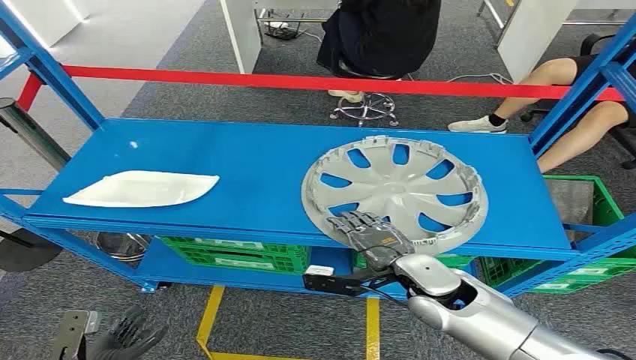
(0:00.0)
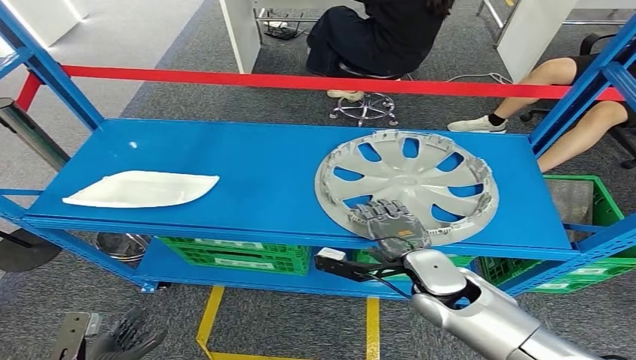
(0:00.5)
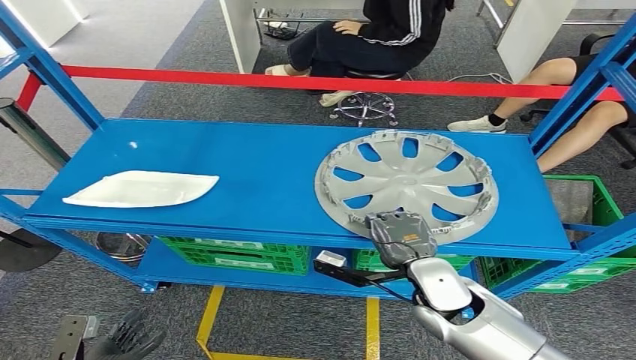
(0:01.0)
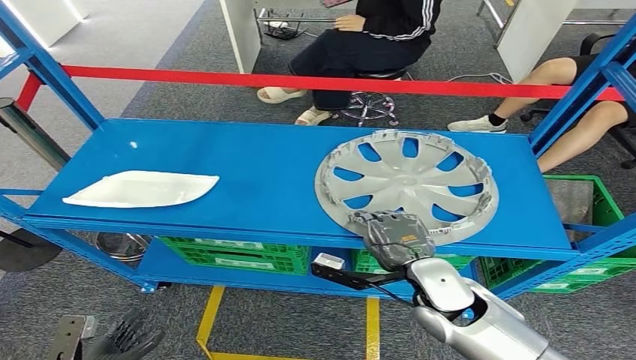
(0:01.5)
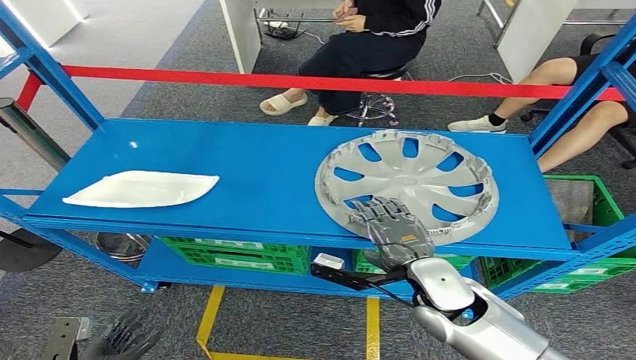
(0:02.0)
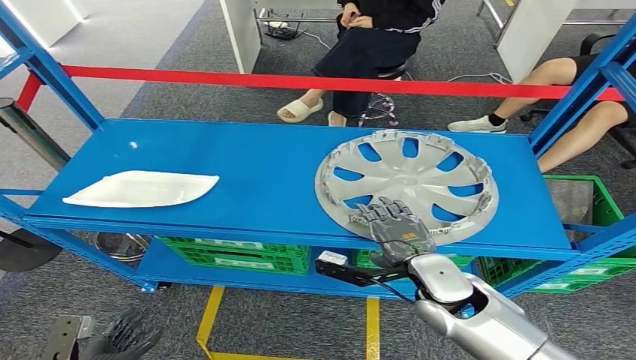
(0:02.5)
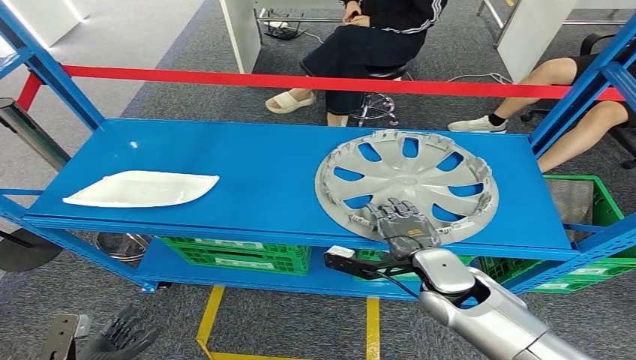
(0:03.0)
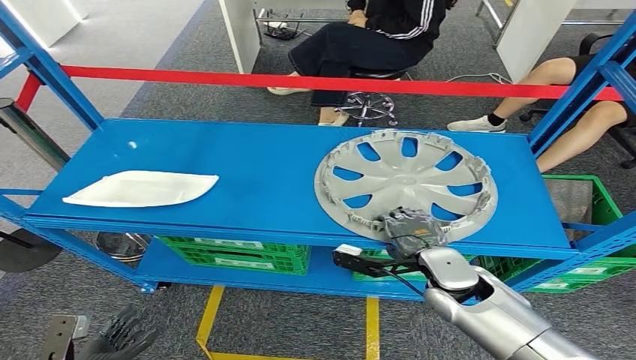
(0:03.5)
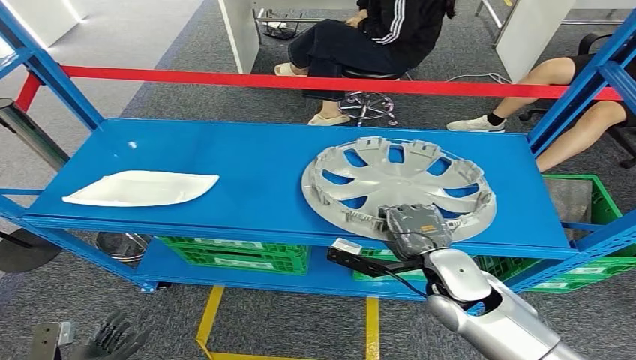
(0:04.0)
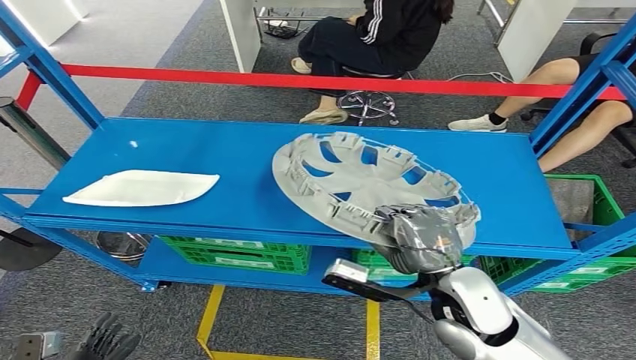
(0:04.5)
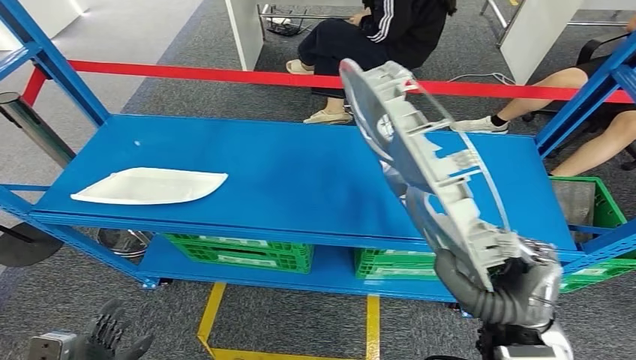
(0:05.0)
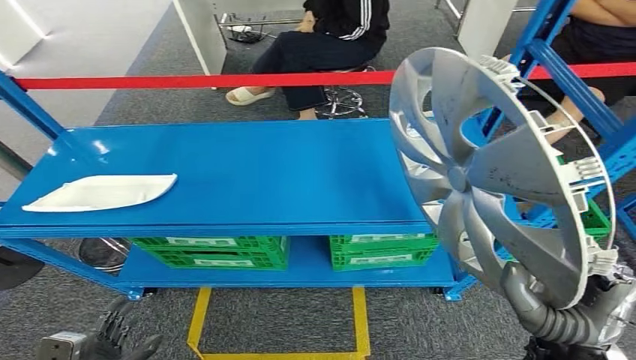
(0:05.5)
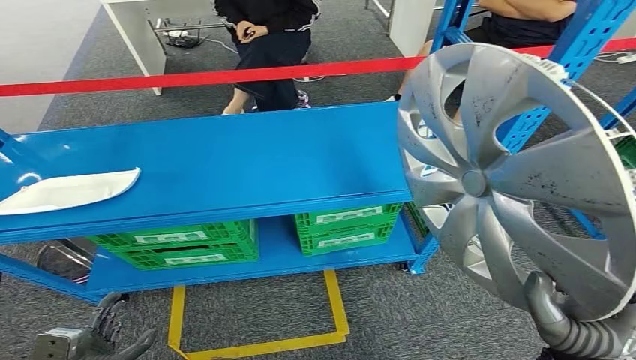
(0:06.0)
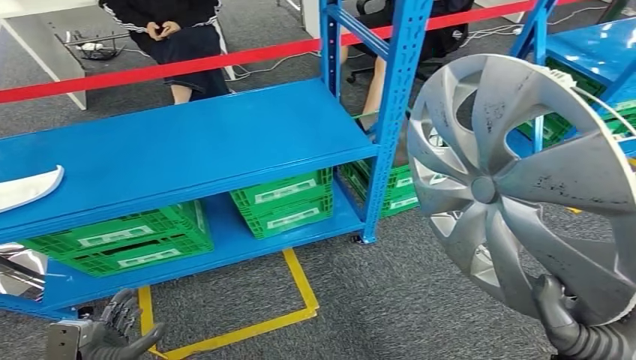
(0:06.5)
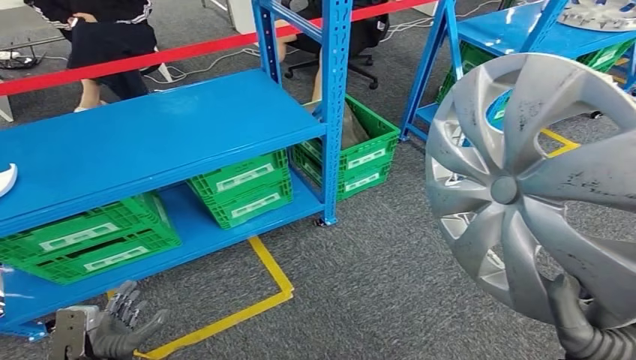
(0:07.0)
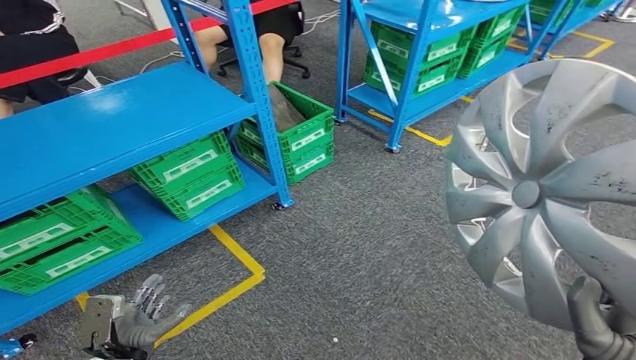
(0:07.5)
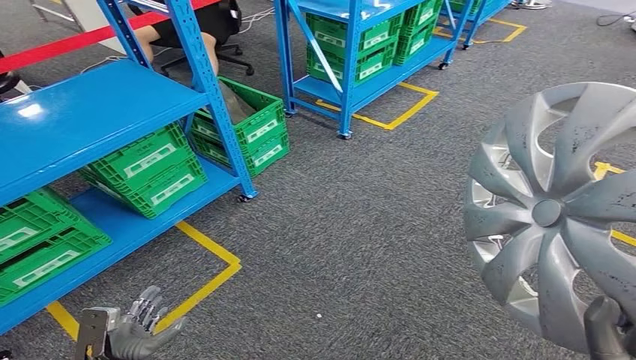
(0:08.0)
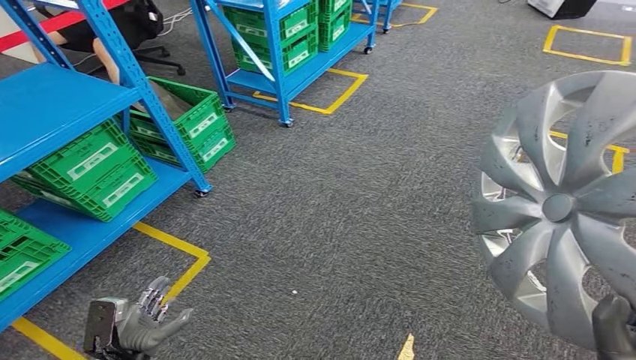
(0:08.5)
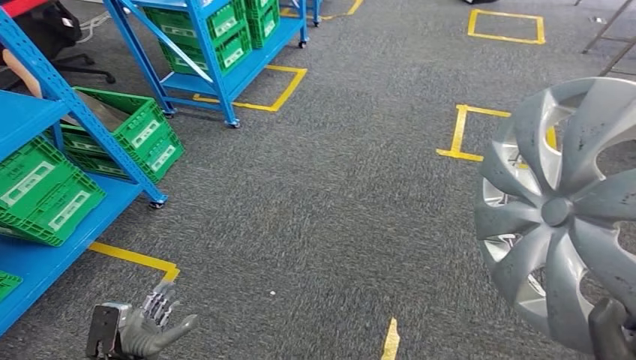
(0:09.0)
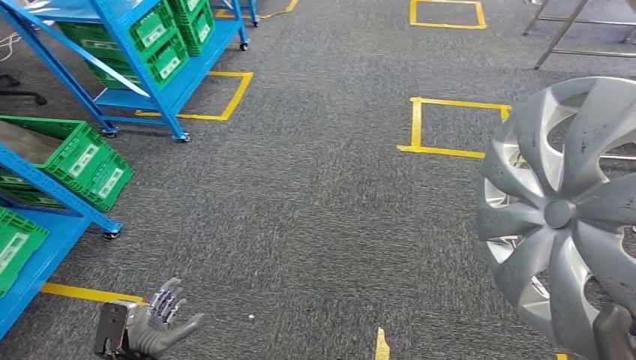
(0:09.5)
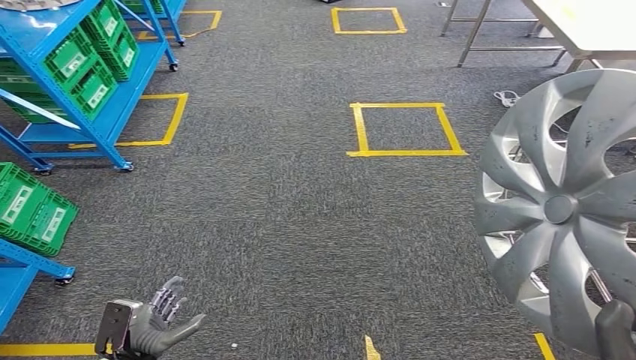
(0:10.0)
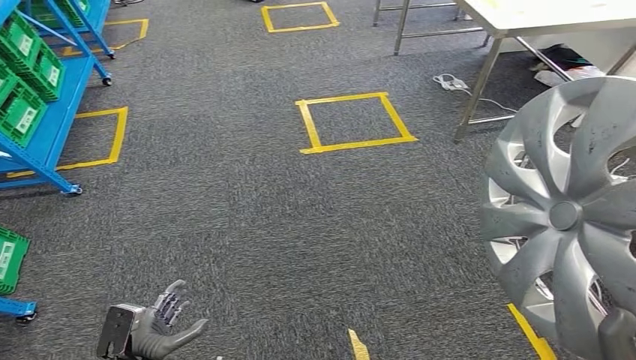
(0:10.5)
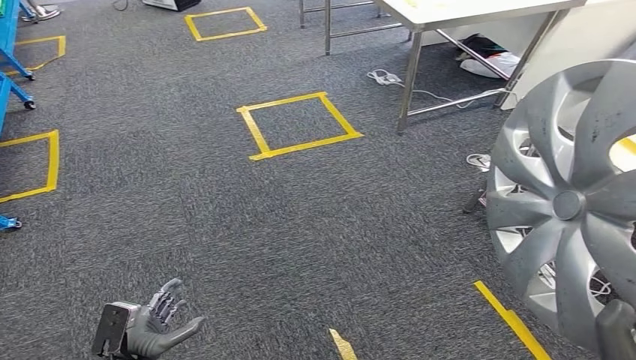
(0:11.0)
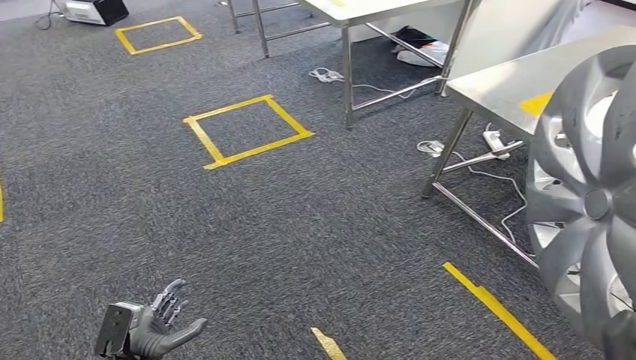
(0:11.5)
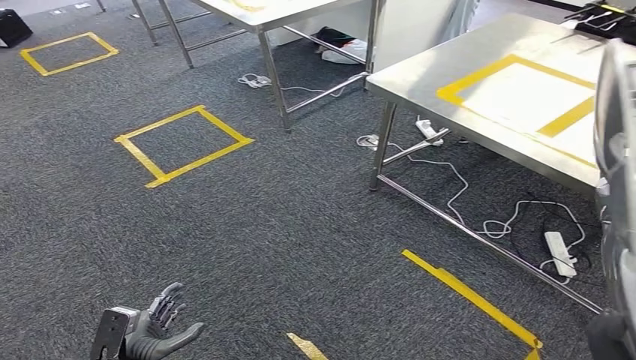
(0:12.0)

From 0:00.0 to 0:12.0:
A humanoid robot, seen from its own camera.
Step, from 0:00.0 to 0:07.0: Pick up the small component from the shelf.
From 0:02.0 to 0:04.0: The hands make only small movements.

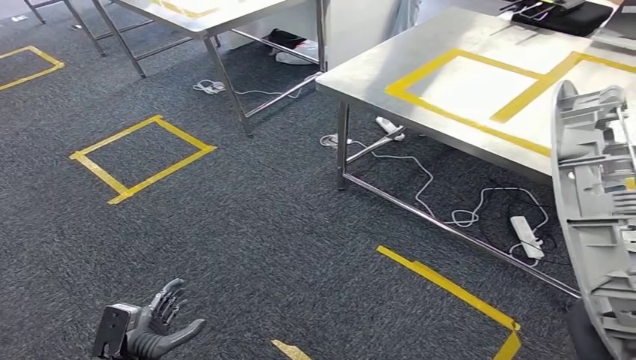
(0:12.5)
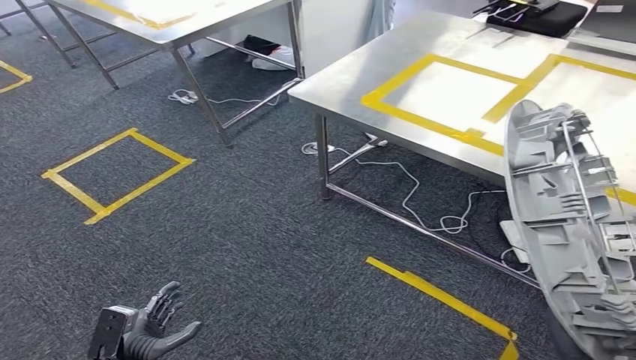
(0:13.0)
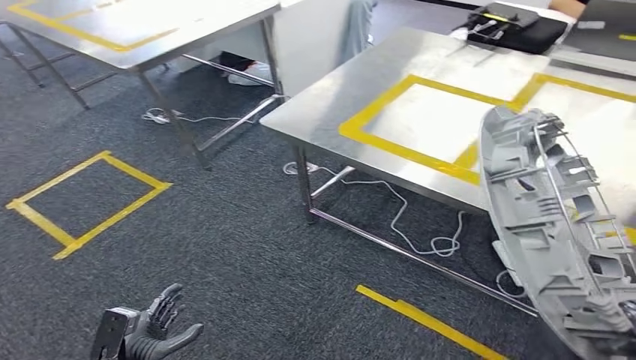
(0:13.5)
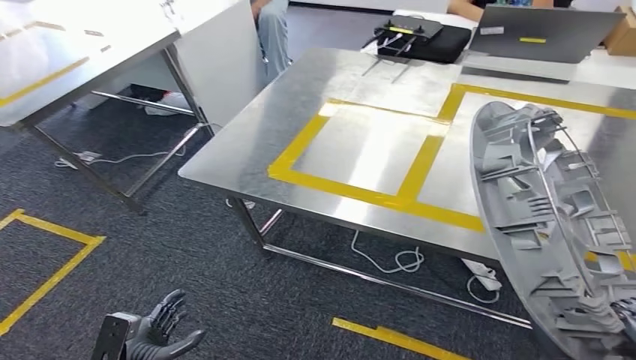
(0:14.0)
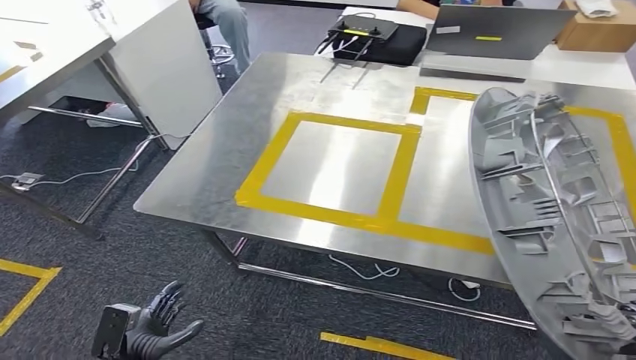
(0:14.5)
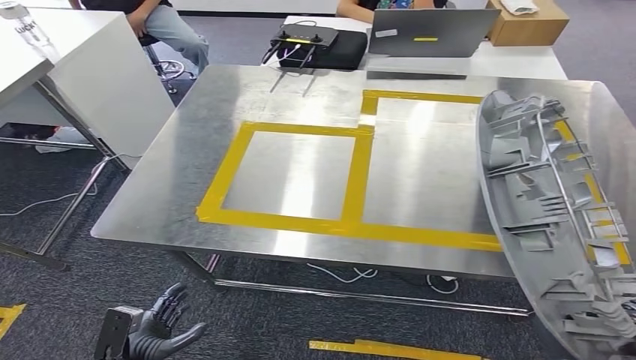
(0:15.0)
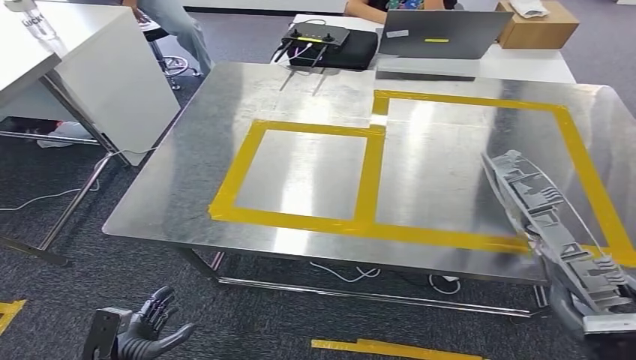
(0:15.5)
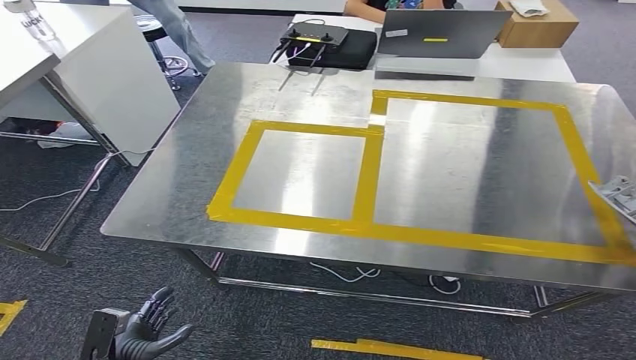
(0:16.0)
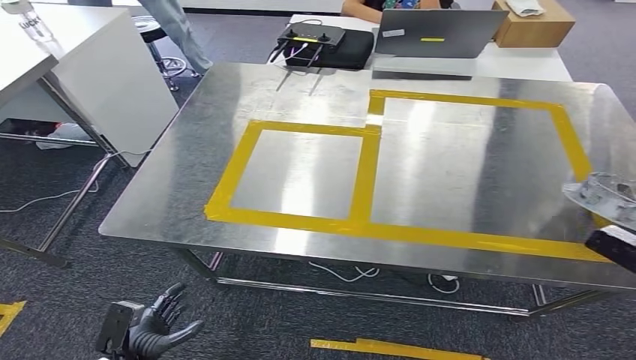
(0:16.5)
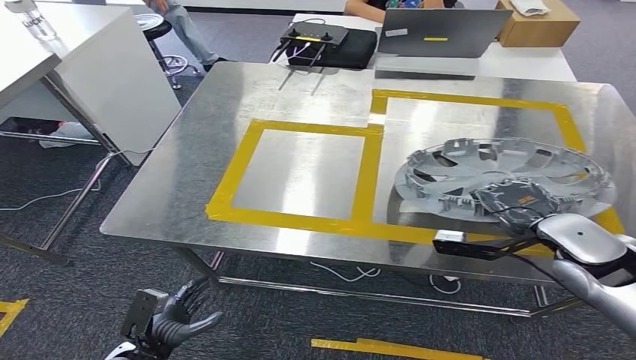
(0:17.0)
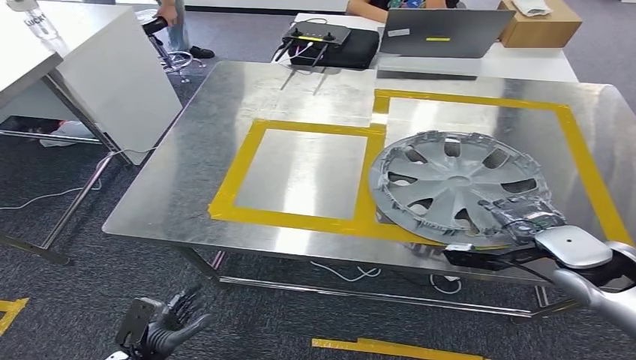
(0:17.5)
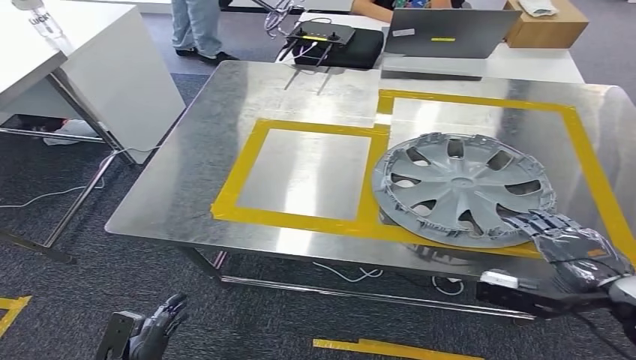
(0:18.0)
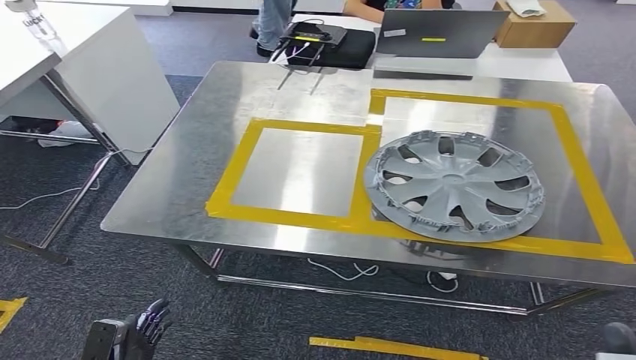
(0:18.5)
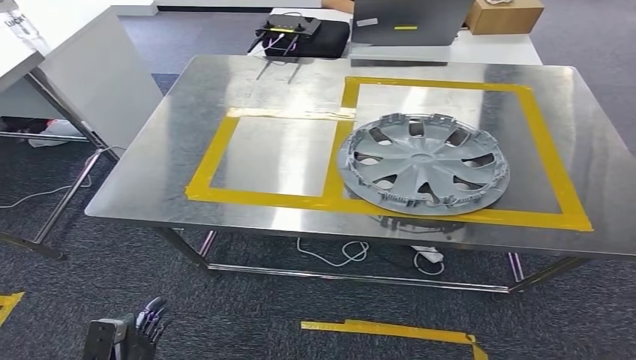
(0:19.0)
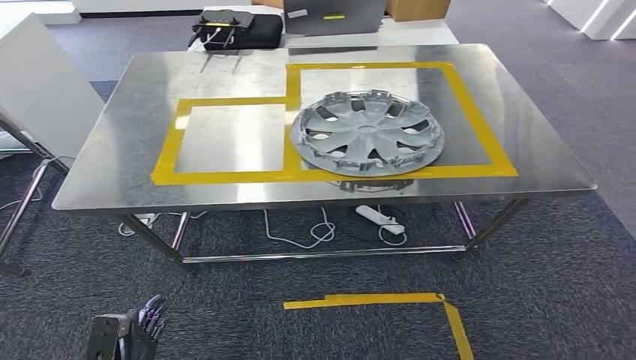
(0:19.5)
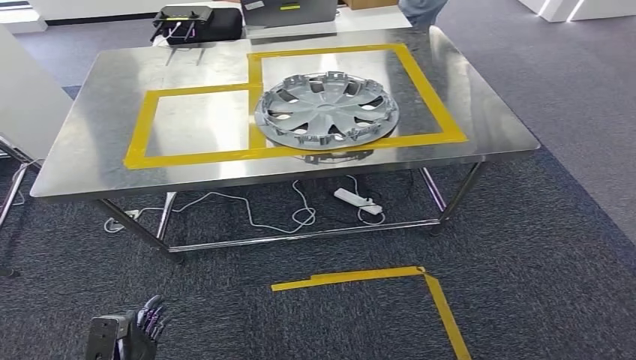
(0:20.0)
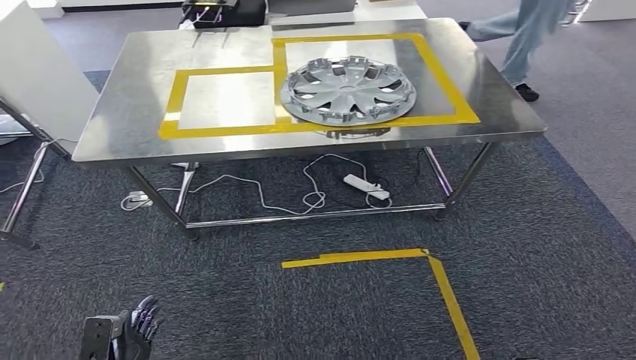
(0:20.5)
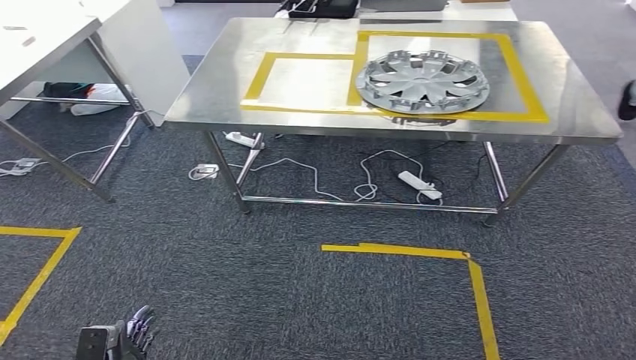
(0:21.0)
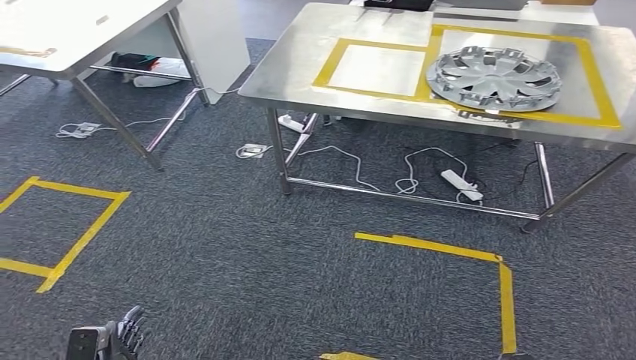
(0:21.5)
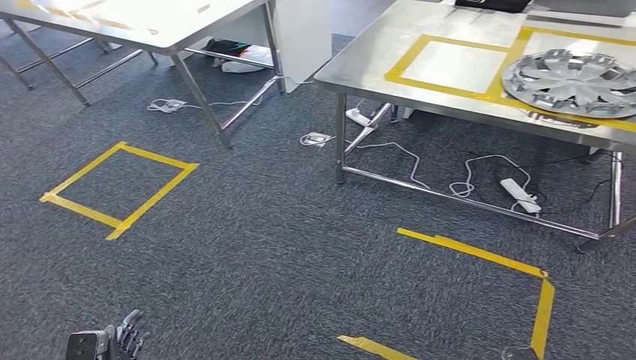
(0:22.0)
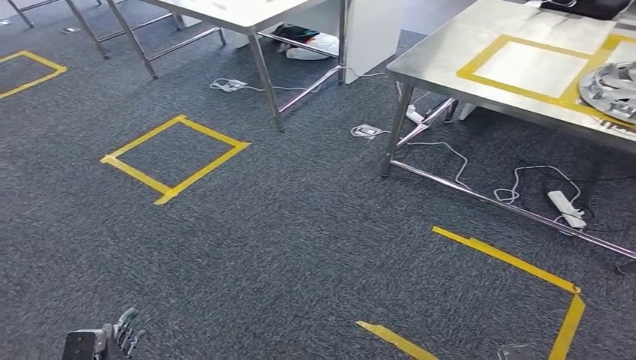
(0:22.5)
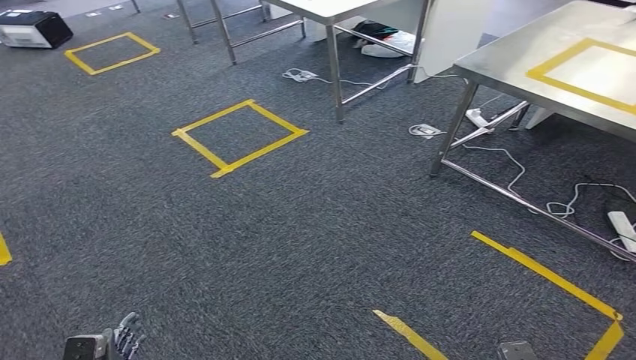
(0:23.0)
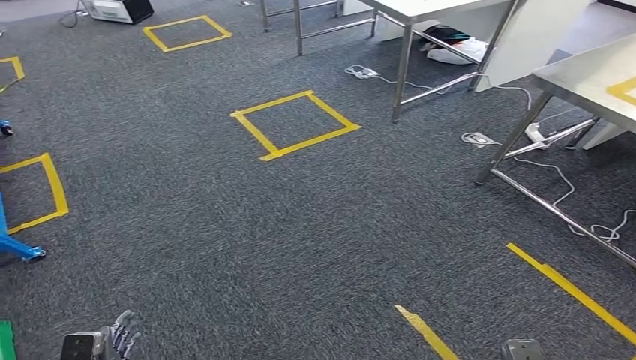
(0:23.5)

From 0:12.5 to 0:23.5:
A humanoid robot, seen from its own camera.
Step, from 0:12.5 to 0:16.5: Move the small component to the workbench.
Step, from 0:17.0 to 0:21.5: Insert the small component into the corresponding slot on the workbench.
